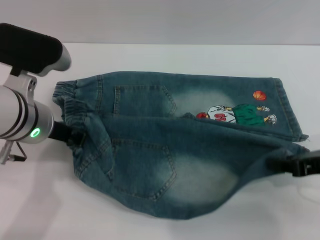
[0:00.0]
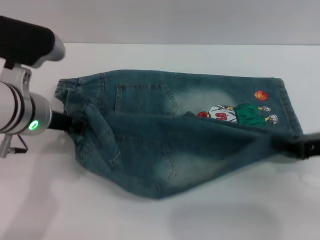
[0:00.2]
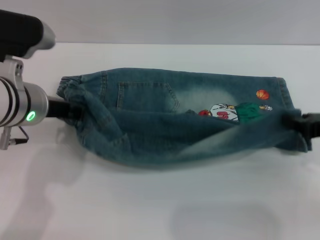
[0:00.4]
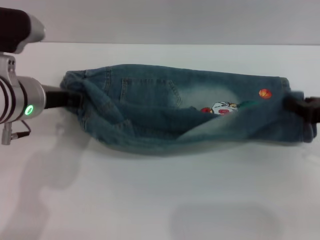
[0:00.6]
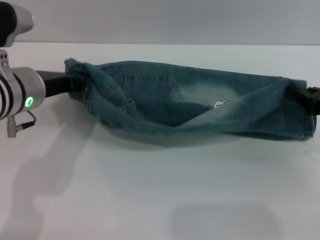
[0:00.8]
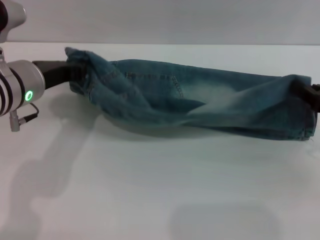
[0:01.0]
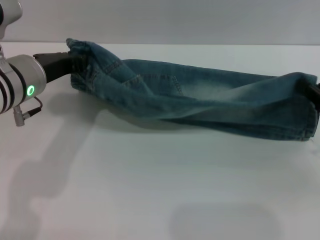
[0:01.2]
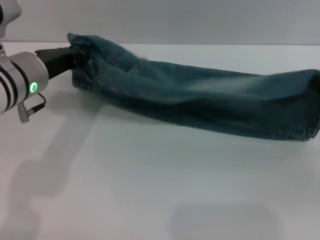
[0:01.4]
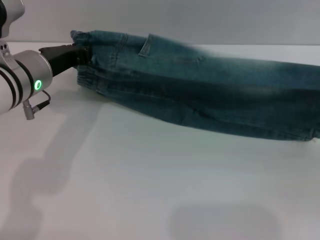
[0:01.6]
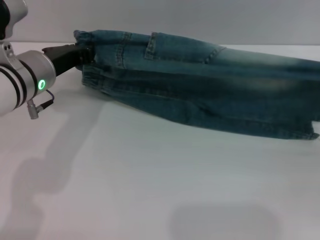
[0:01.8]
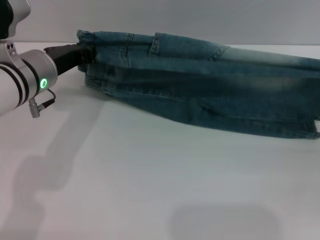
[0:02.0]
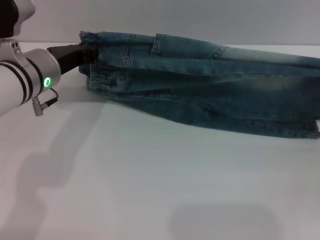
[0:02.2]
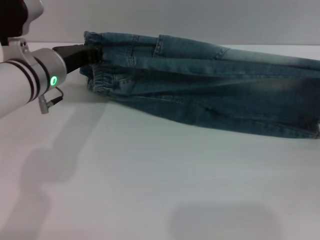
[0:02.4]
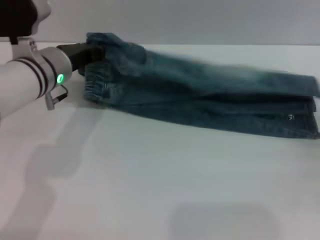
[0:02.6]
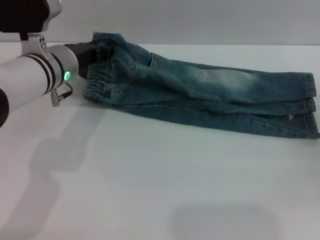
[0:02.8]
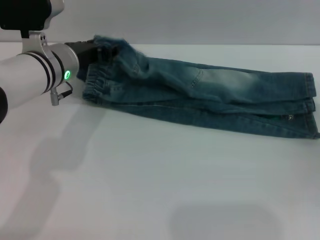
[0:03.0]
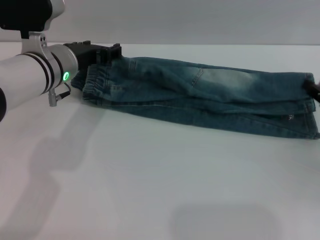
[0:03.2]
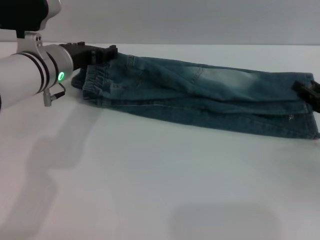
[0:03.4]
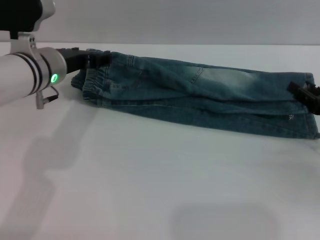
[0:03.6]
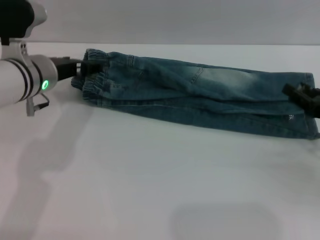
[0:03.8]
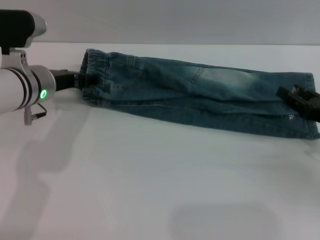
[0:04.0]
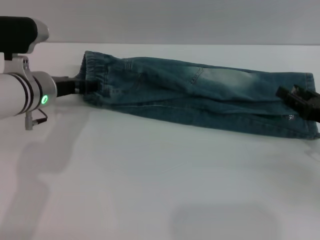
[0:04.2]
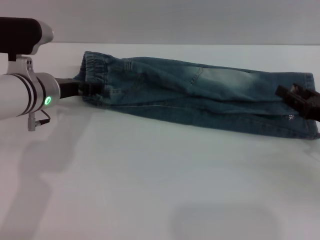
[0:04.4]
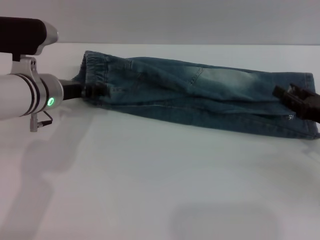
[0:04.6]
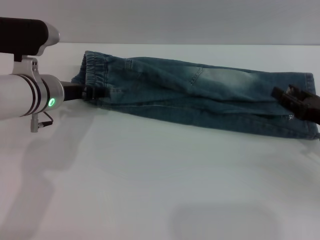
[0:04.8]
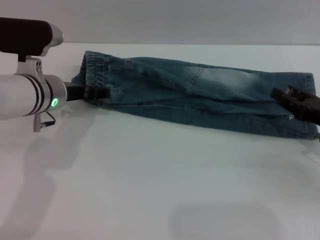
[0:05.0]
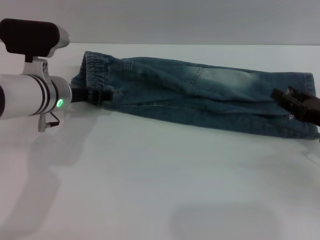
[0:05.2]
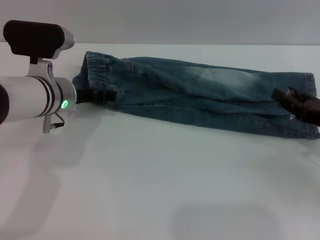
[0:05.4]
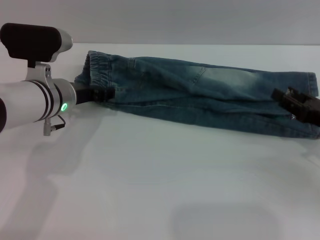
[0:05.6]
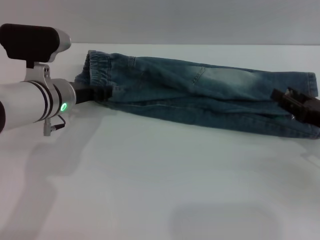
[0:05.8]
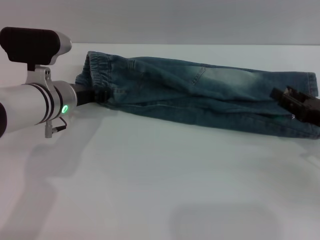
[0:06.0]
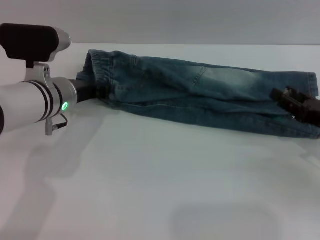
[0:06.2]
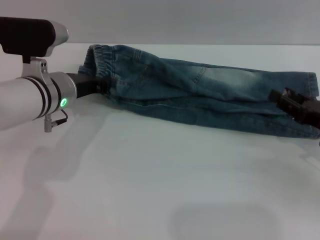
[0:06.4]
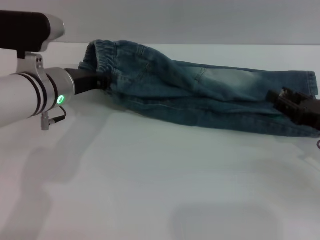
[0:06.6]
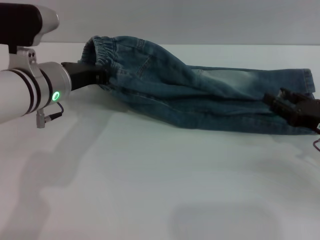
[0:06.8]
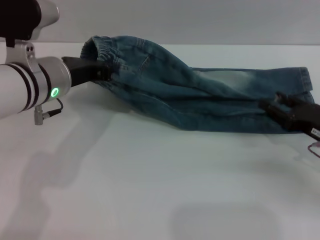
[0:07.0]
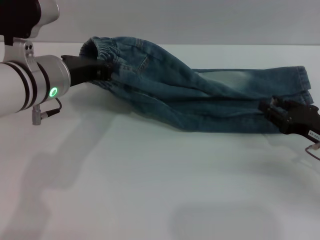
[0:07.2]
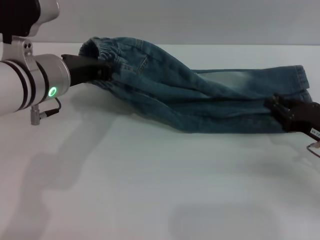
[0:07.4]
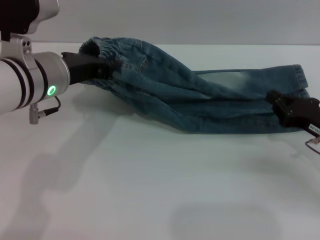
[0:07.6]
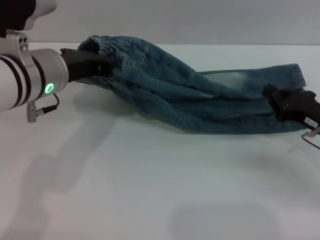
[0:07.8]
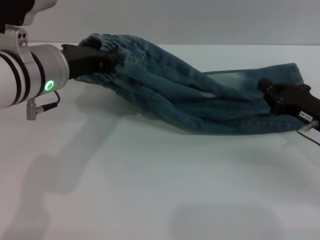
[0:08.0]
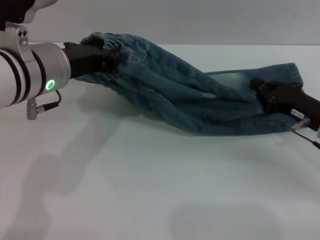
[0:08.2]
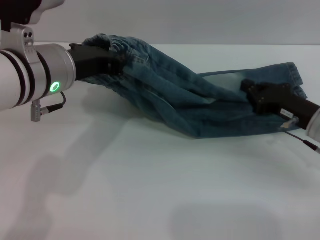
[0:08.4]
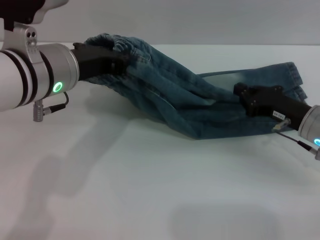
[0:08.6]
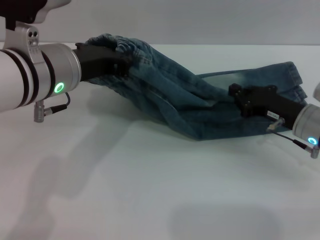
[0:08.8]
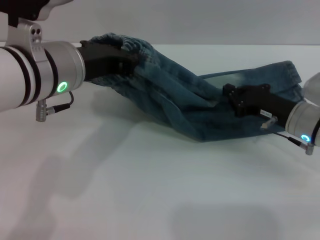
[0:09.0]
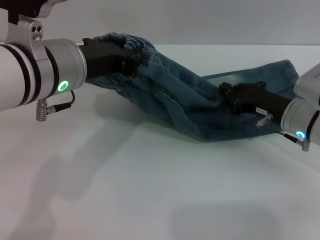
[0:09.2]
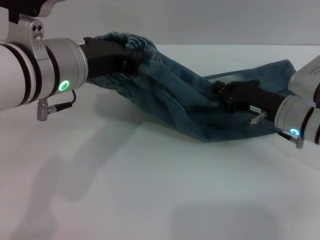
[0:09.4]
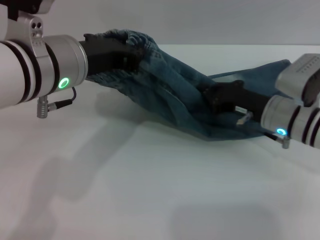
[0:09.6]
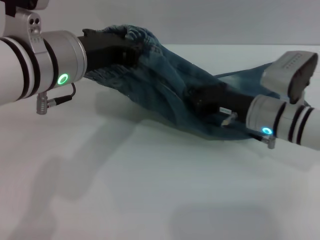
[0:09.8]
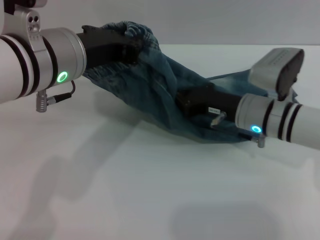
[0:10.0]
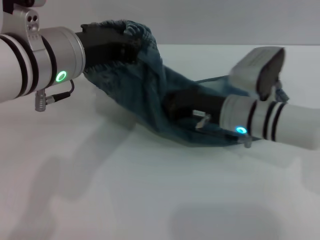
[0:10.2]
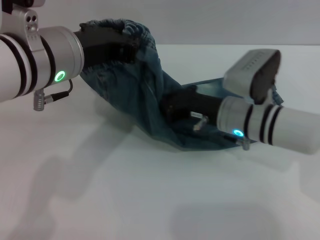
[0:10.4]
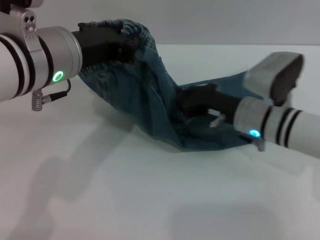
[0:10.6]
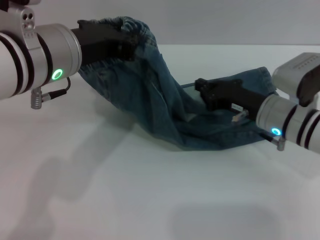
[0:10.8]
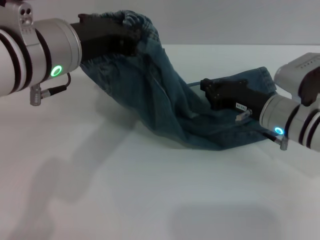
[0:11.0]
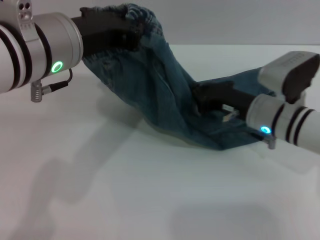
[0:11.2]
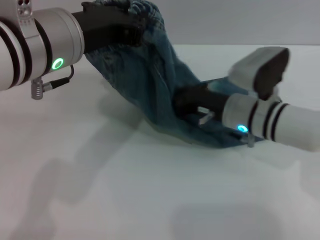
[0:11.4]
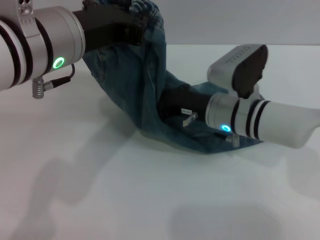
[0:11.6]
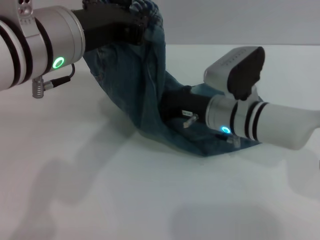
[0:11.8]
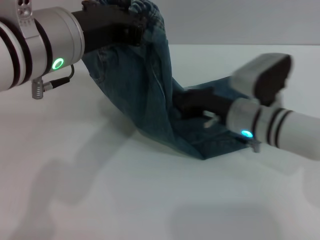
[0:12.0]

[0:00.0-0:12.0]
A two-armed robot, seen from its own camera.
Step, 0:00.0 to 0:03.4: Fold the bottom of the pants upward with both grippers.
0:00.0 to 0:01.6: The right gripper is displaced to the right by about 10 cm.
0:01.6 to 0:03.0: The left gripper changes place by approximately 5 cm.
0:03.0 to 0:04.4: The left gripper opens its fingers.
0:04.4 to 0:06.0: The left gripper closes up.
0:06.0 to 0:07.6: The left gripper goes about 10 cm upward, and closes its fingers.
0:07.6 to 0:09.0: The left gripper moves about 5 cm. The right gripper travels to the left and forward by some 10 cm.
0:09.0 to 0:10.4: The right gripper travels to the left by approximately 10 cm.
0:10.4 to 0:12.0: The right gripper moves approximately 5 cm to the right and comes back.

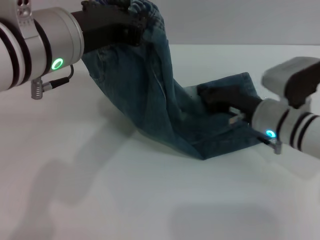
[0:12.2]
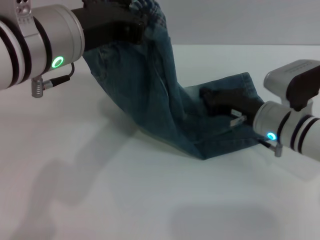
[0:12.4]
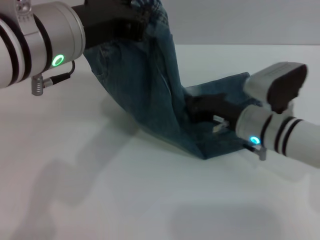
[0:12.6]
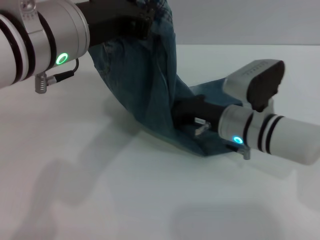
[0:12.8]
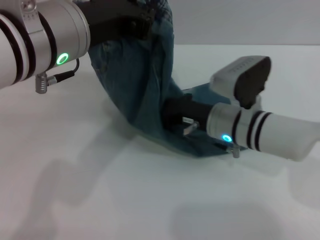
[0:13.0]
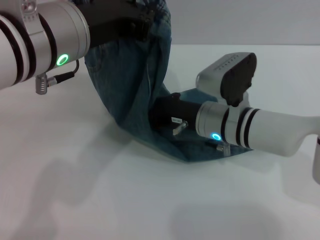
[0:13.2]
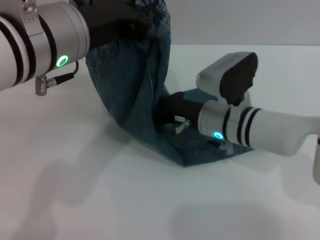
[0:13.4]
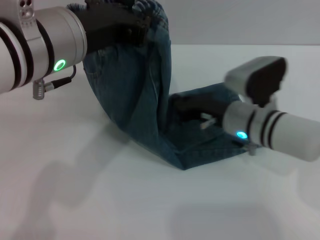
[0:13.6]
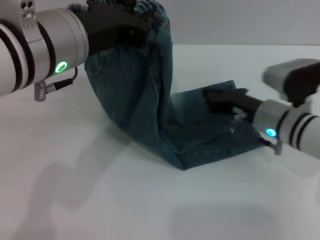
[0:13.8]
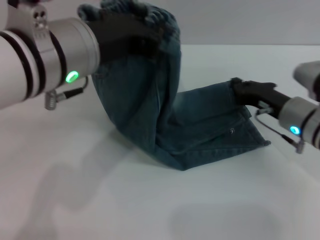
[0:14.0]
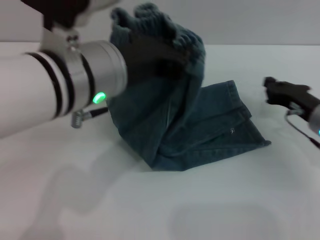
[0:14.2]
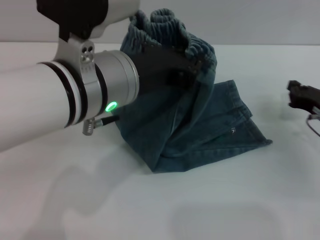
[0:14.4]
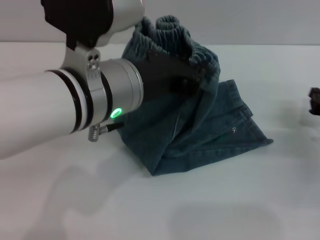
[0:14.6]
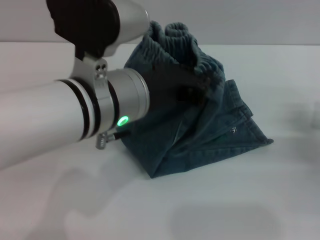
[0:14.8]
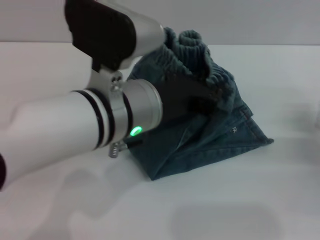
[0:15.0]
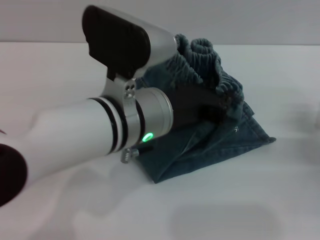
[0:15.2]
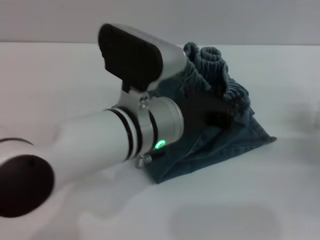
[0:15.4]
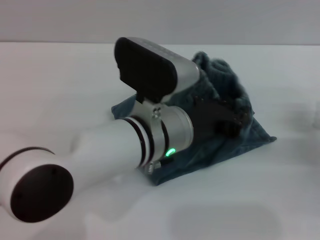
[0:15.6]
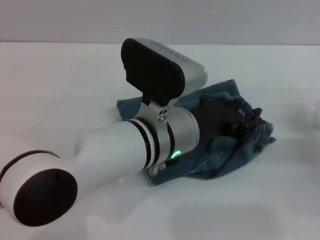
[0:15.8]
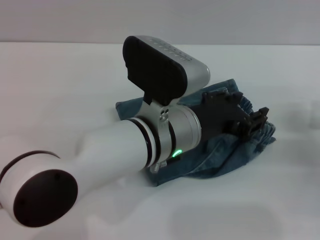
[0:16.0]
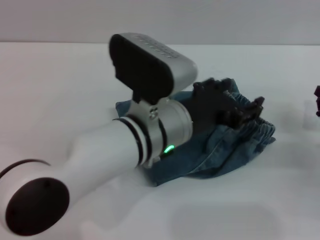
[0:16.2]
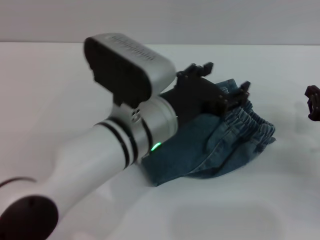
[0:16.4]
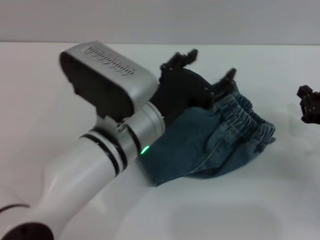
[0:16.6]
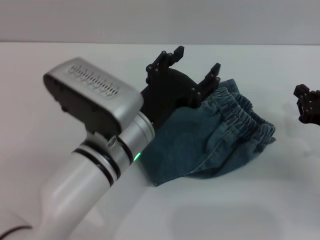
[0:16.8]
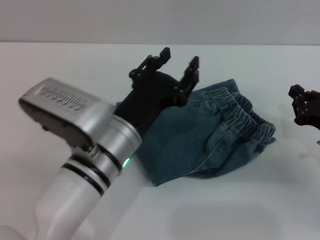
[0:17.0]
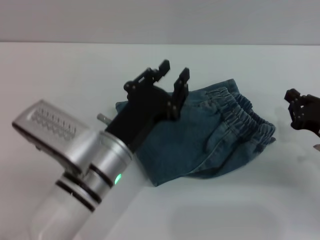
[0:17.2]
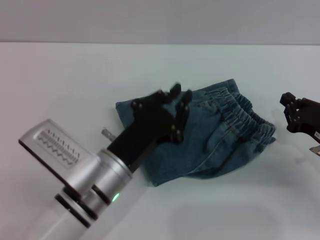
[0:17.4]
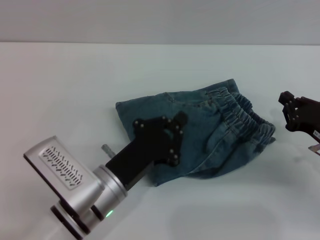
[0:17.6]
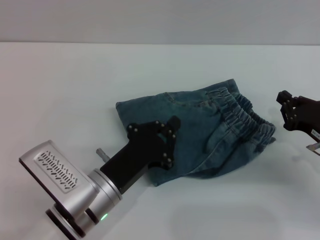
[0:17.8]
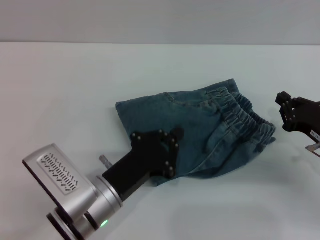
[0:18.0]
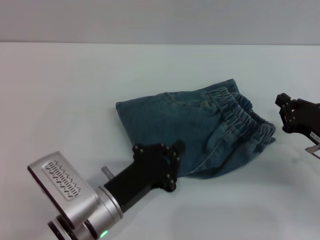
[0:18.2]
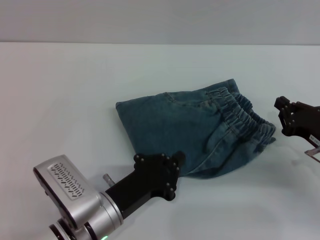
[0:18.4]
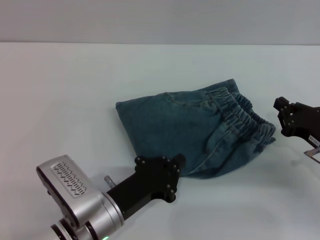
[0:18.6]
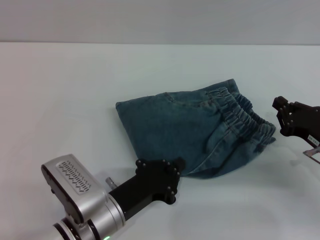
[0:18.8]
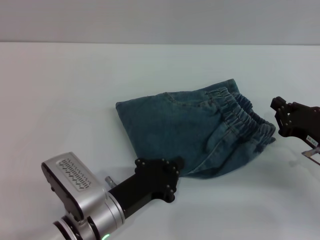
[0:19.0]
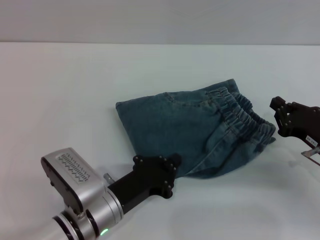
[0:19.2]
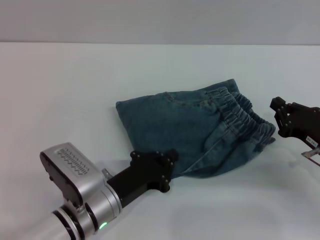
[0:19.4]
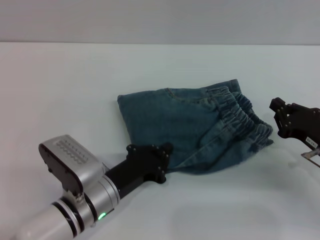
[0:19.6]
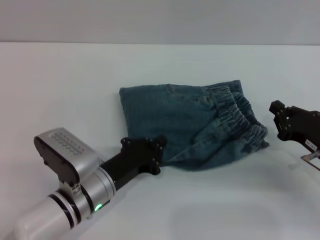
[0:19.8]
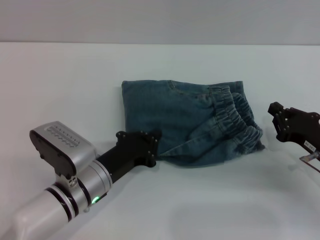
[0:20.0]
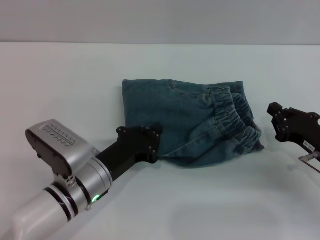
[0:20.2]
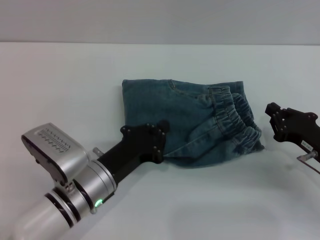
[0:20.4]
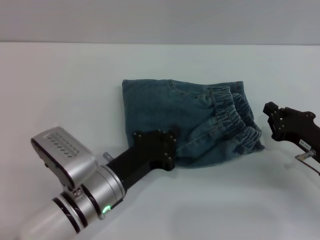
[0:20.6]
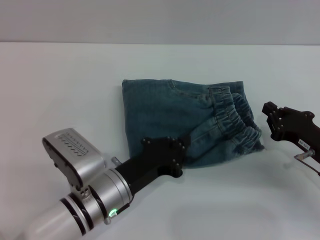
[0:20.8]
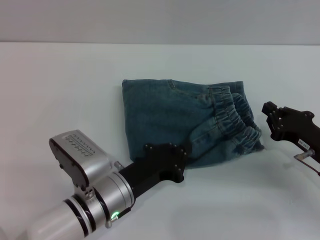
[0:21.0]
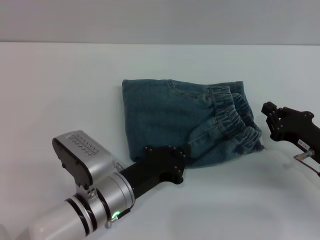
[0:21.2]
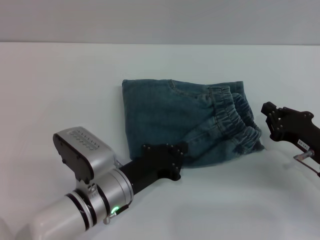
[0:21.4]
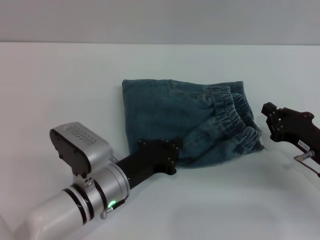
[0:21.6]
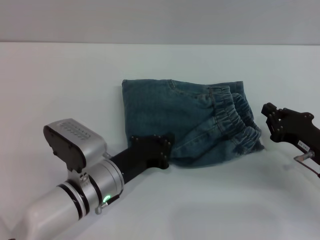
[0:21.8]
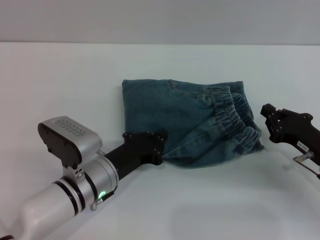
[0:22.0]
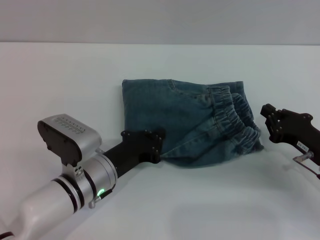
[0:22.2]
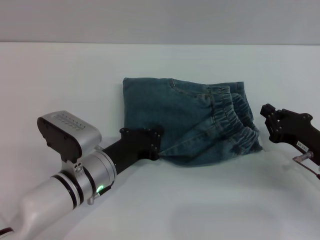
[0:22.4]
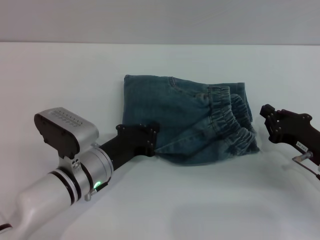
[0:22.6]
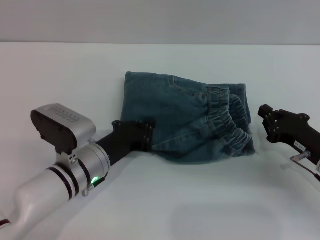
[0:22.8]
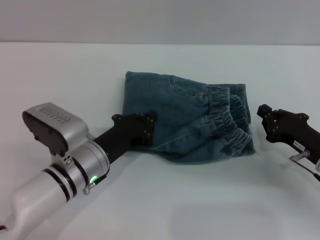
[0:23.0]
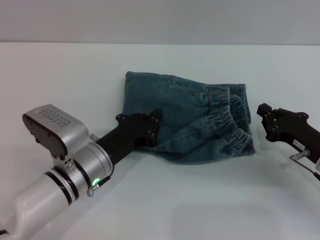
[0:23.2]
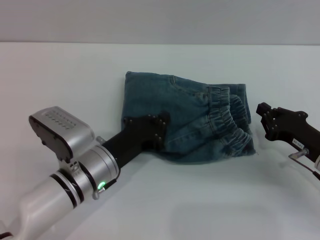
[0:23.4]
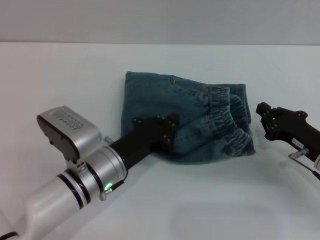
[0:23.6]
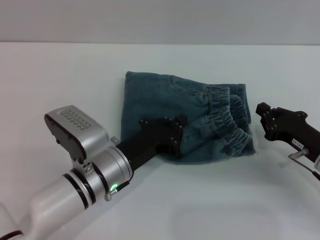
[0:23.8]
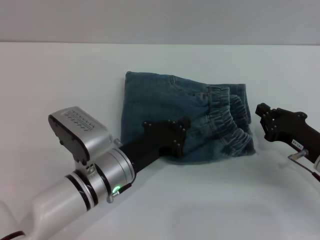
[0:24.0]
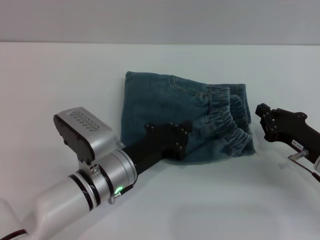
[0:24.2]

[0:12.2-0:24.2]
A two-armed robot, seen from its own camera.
Step, 0:12.2 to 0:16.0: Fold the pants from left to right with the left gripper.
Step, 0:16.2 to 0:21.8: Place the folded trousers onto the center area with the left grippers.
0:12.2 to 0:13.8: The right gripper reaches roughly 10 cm to the left, then returns.
0:13.8 to 0:15.2: The right gripper heads to the right, covering roughly 15 cm. Meanwhile the left gripper travels downward and to the right by about 10 cm.
0:15.2 to 0:16.6: The left gripper opens.
0:16.6 to 0:18.2: The left gripper travels downward, to the left and backward by some 15 cm, and closes its fingers.
0:18.2 to 0:21.2: The grippers make only small movements.
0:21.2 to 0:22.6: The left gripper changes place by some 5 cm.
0:22.6 to 0:24.2: The grippers move only a little.
